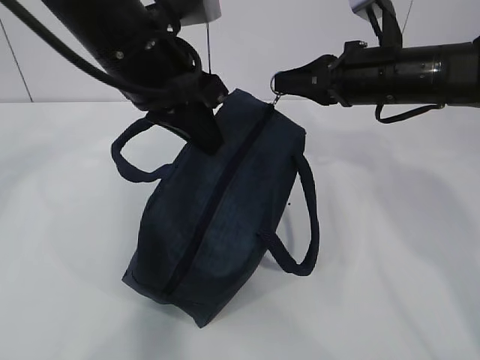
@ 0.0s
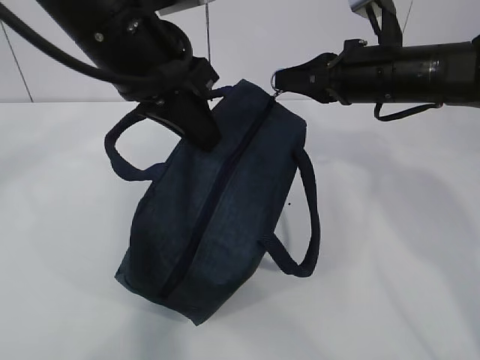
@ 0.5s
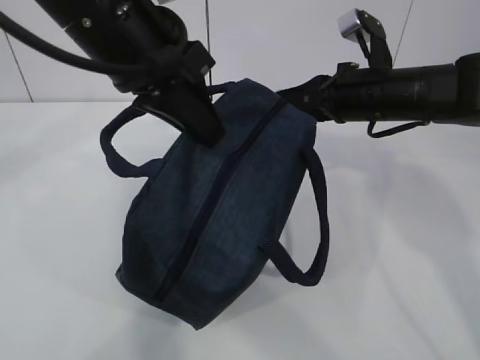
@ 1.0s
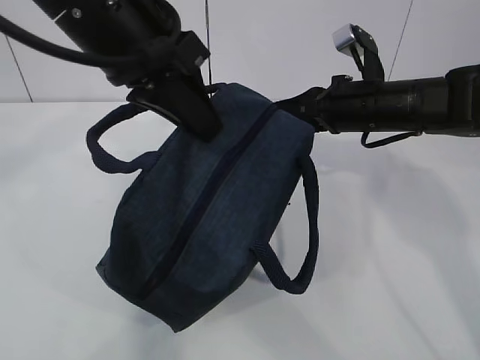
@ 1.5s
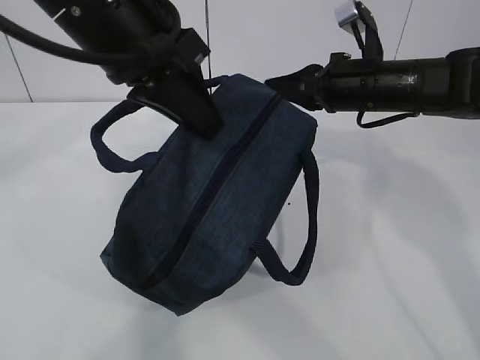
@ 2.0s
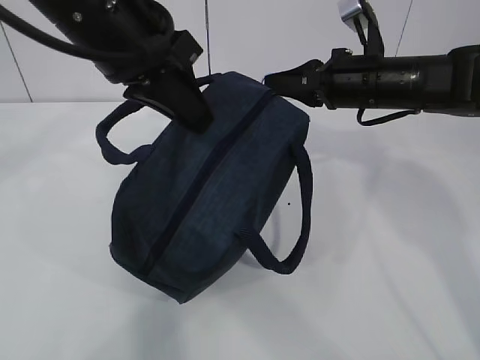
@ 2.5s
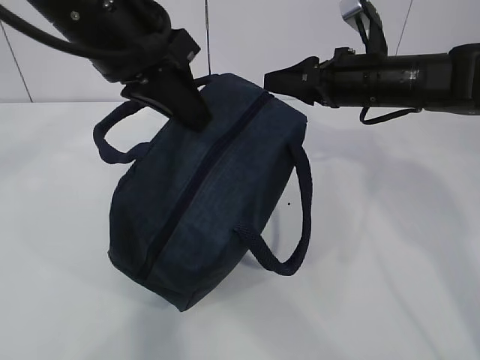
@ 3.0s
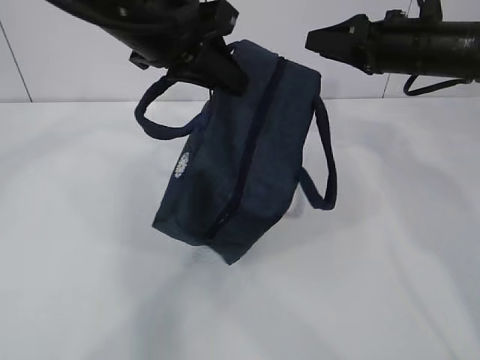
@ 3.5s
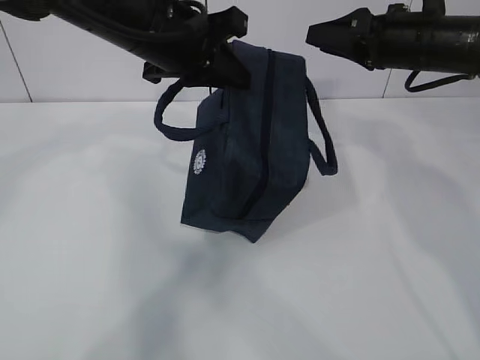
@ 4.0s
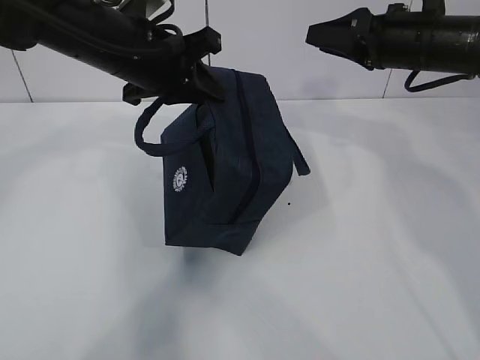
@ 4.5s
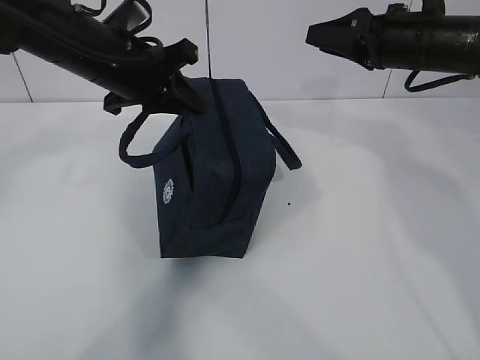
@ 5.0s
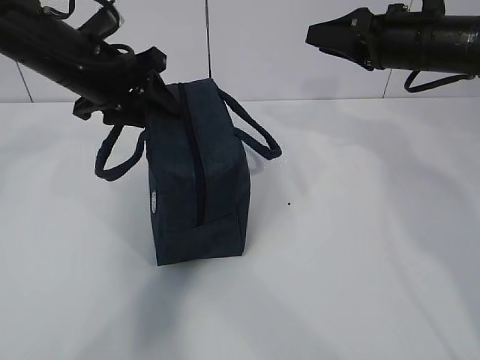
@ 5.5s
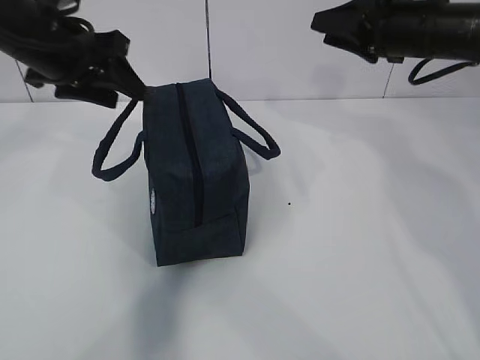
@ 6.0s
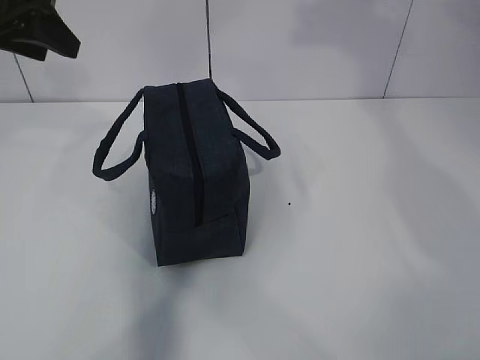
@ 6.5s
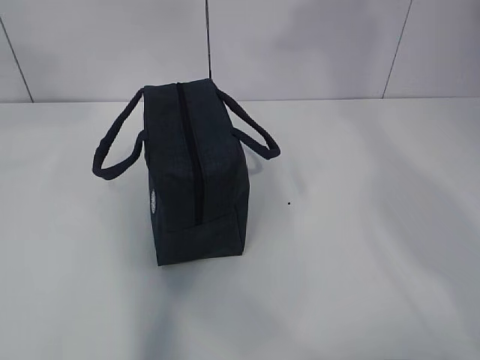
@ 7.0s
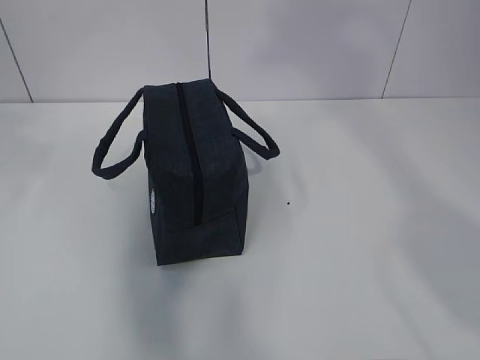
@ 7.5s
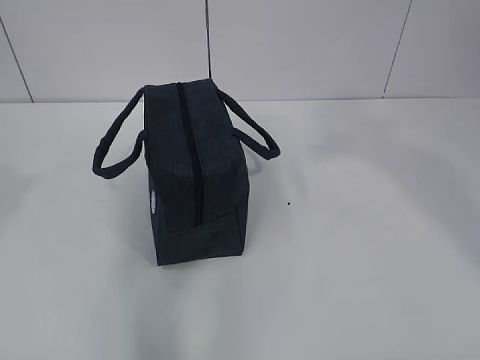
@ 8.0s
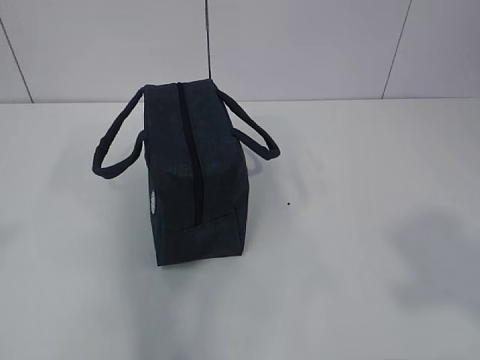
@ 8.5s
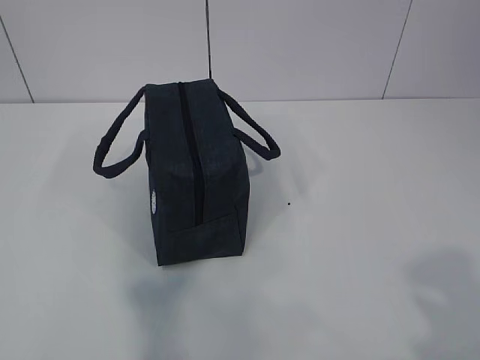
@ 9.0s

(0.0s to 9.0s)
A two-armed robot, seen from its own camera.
0.0s - 2.0s: The left gripper changes place by about 5 cm.
2.0s - 4.5s: The right gripper changes place by about 5 cm, and opens its fingers, while the left gripper goes some 10 cm forward and downward.
4.5s - 7.0s: The right gripper goes approximately 25 cm upward. Meanwhile the left gripper shifts approximately 25 cm upward, to the left and backward, and opens.

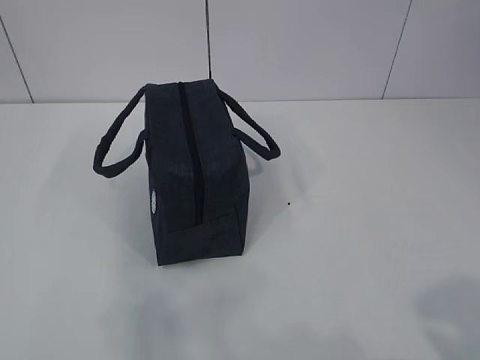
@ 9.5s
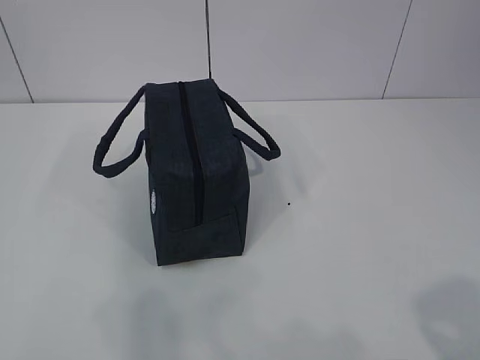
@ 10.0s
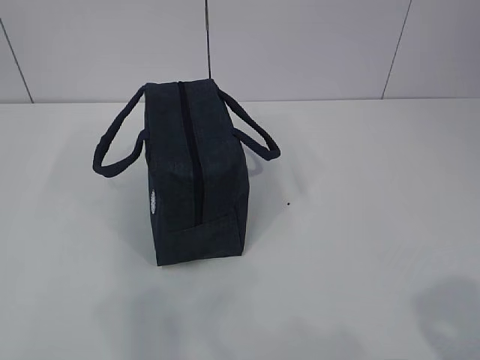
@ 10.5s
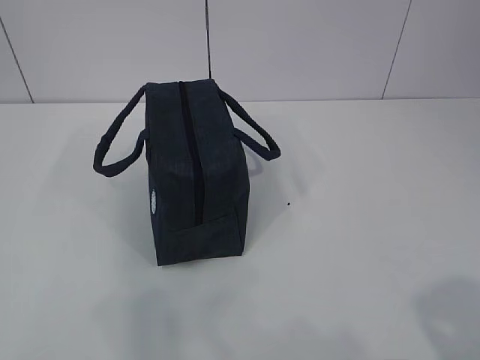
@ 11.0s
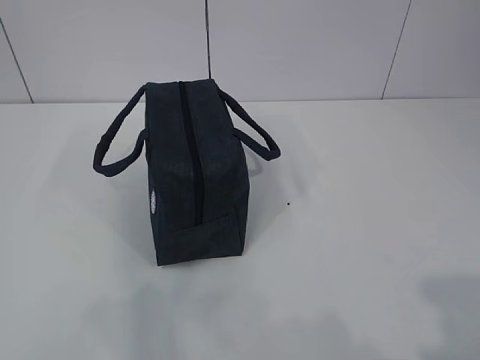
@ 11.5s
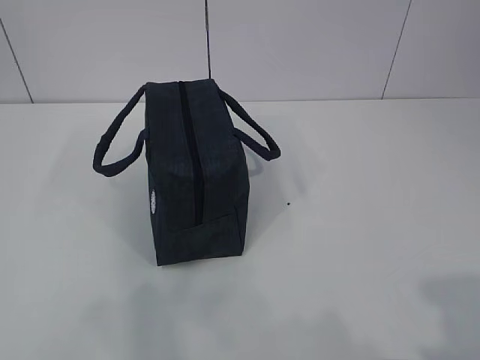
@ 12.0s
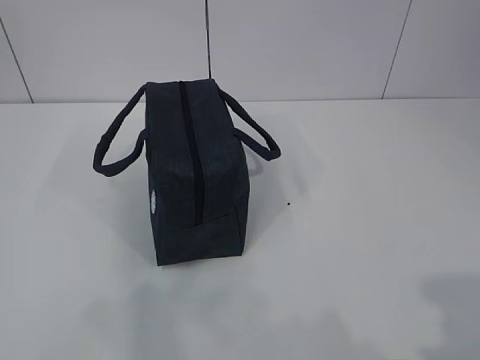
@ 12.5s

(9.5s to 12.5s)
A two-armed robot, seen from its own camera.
9.5s - 11.0s: Both grippers stay put.

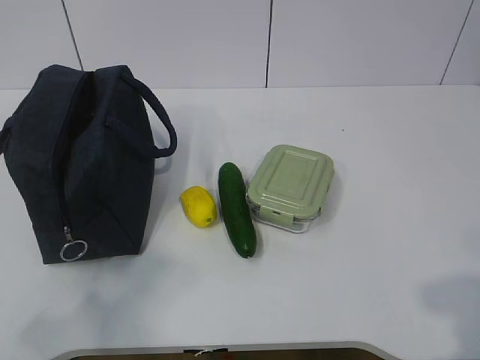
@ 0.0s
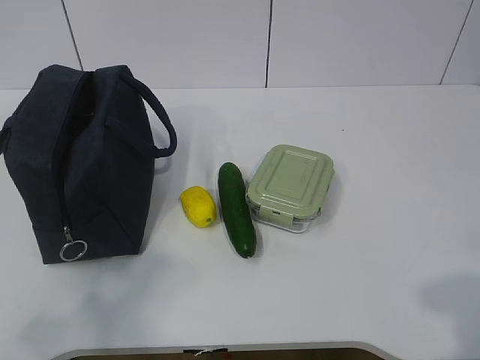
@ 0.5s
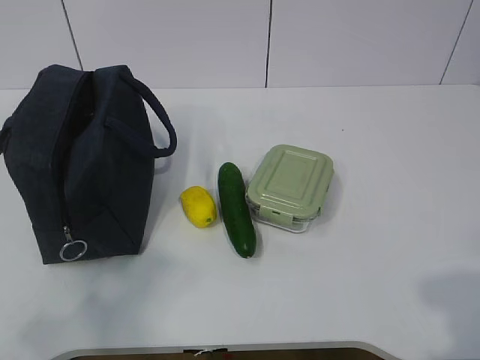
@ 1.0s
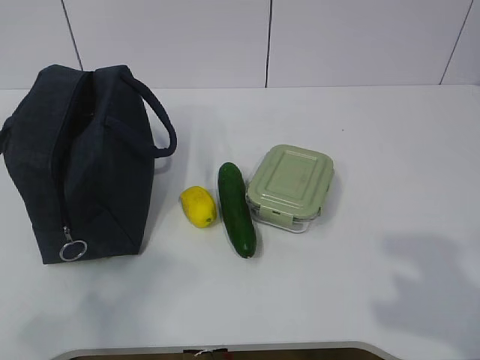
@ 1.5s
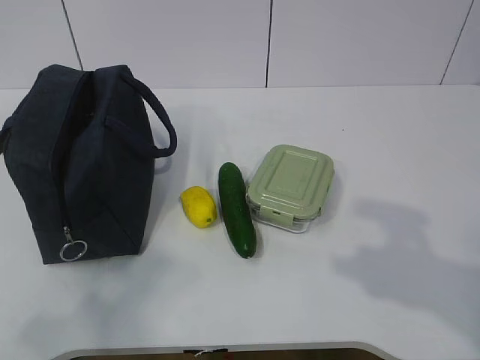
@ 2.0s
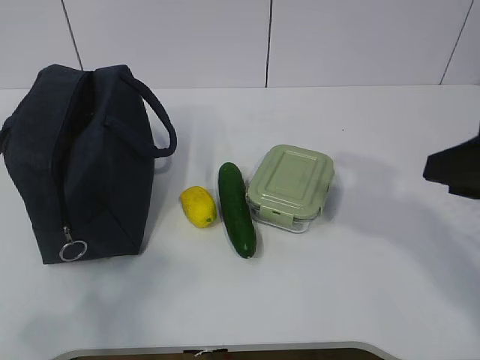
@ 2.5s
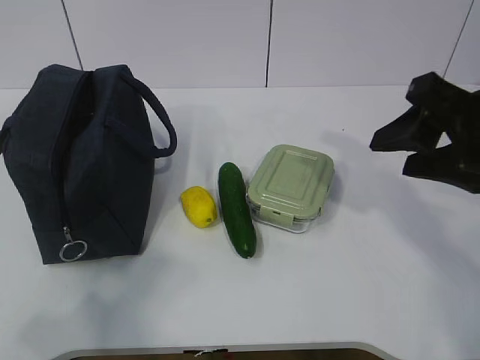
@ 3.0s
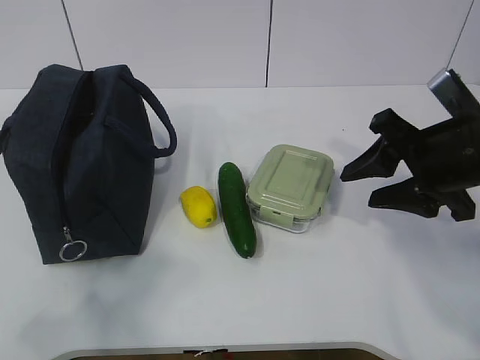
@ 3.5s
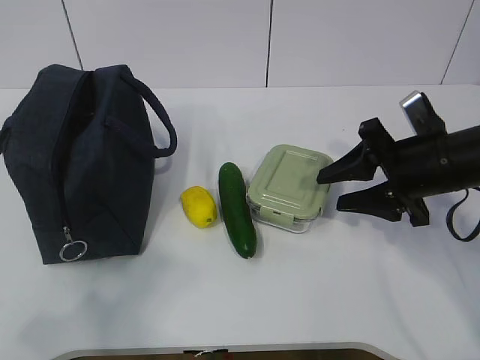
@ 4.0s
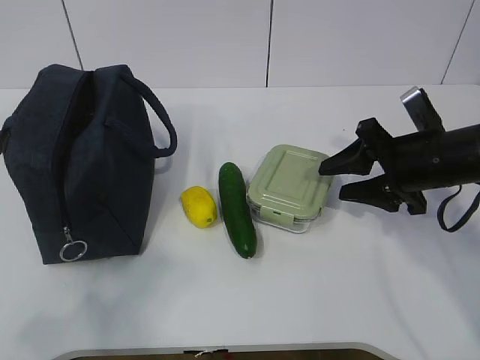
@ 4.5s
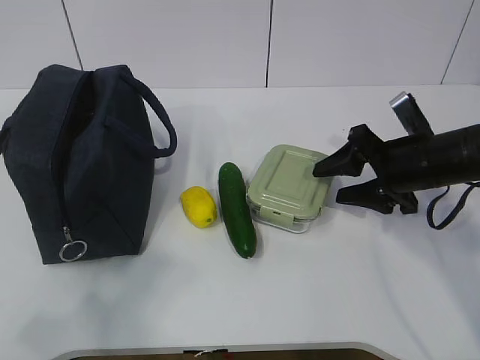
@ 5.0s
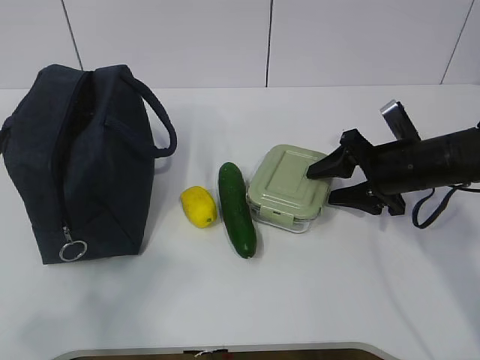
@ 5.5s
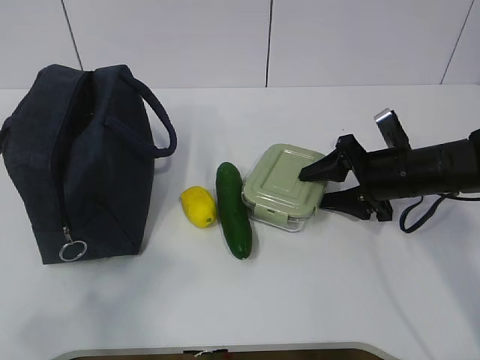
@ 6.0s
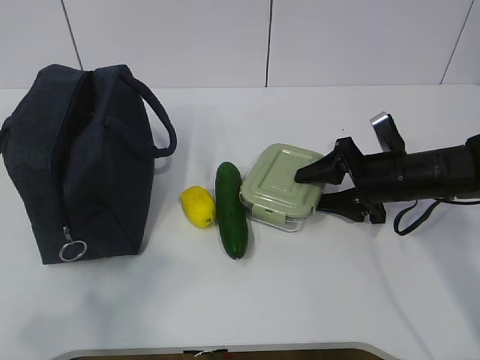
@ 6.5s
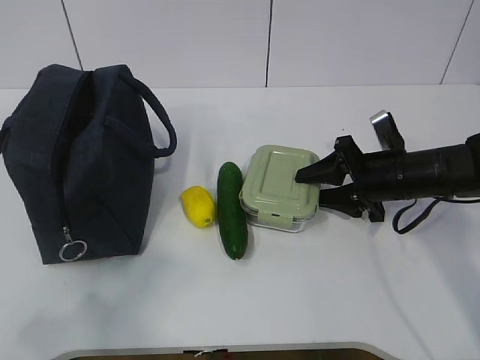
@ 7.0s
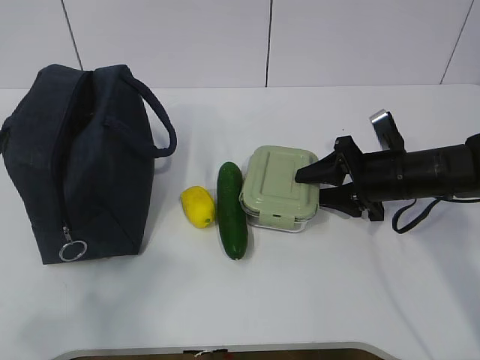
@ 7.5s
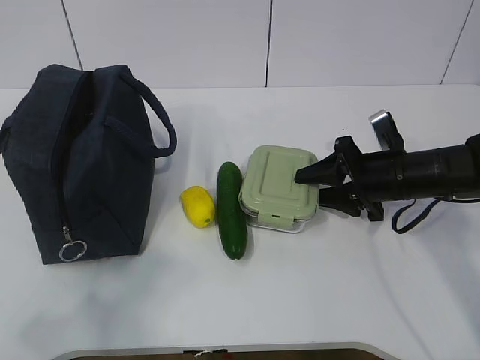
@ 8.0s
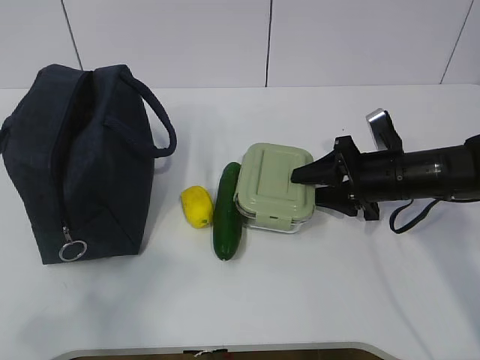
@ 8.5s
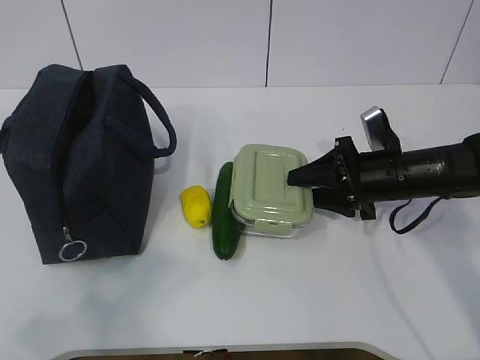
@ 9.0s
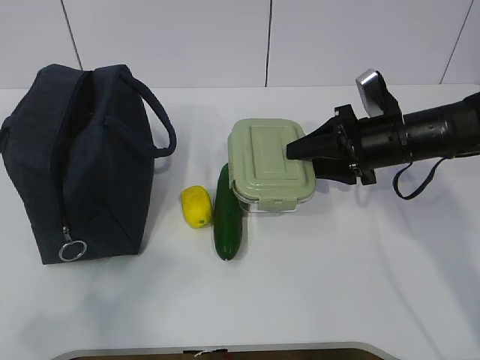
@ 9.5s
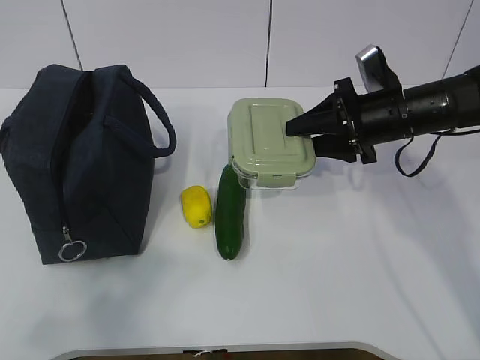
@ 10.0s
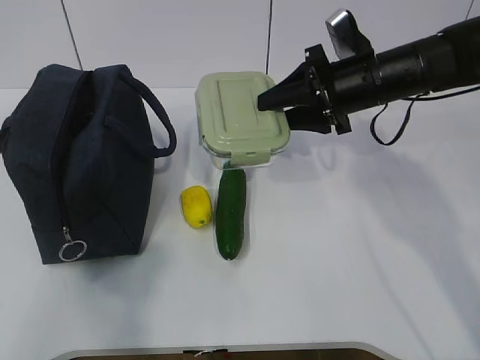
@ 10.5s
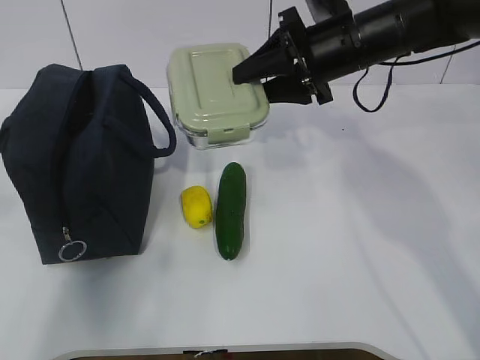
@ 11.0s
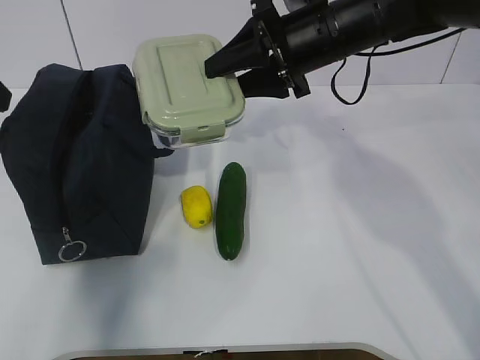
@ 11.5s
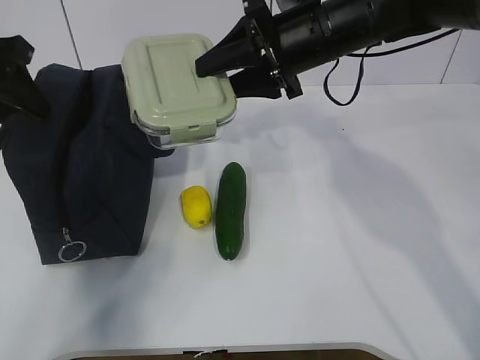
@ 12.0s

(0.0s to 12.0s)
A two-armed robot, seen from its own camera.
Step, 0.0s - 6.5s: Grab the lunch box with your right hand.
Step, 7.0s - 10.5s: Grab the lunch bag with your left hand.
2.0s - 4.0s: The right gripper shifts roughly 25 cm forward and downward.
4.0s - 6.0s: The right gripper moves downward and forward, roughly 10 cm.
6.0s - 8.0s: The grippers stay close to where they were, moving slightly.
8.0s - 10.0s: The right gripper shifts some 5 cm upward.
10.0s - 12.0s: The right gripper heads to the left and upward, covering roughly 15 cm. The left gripper shifts roughly 35 cm forward.

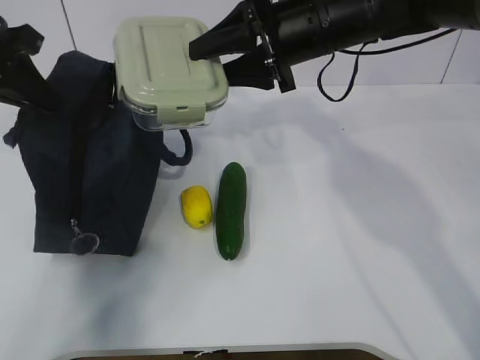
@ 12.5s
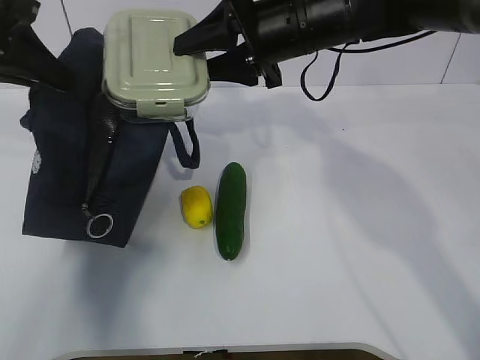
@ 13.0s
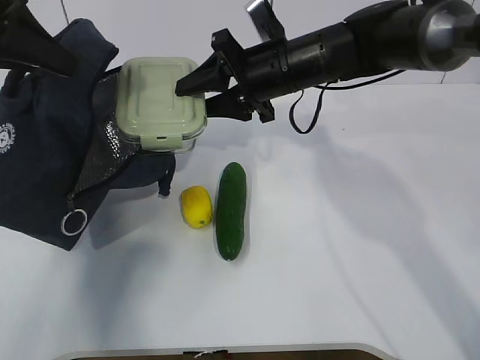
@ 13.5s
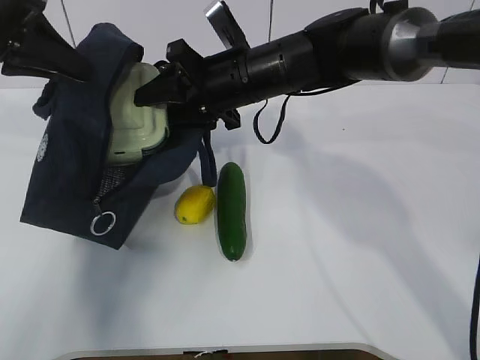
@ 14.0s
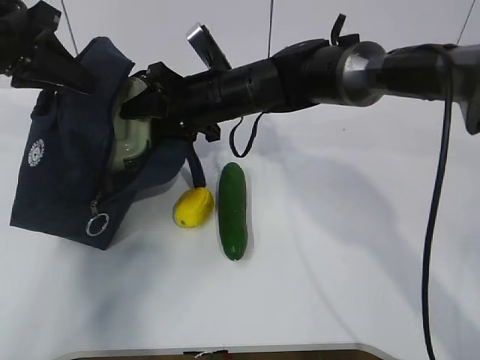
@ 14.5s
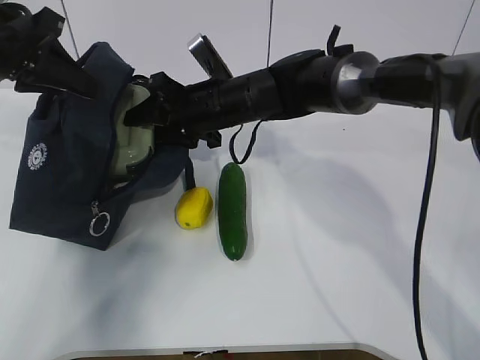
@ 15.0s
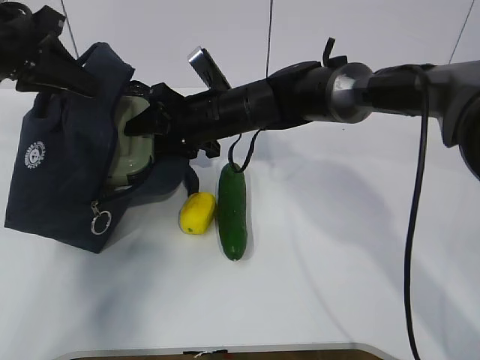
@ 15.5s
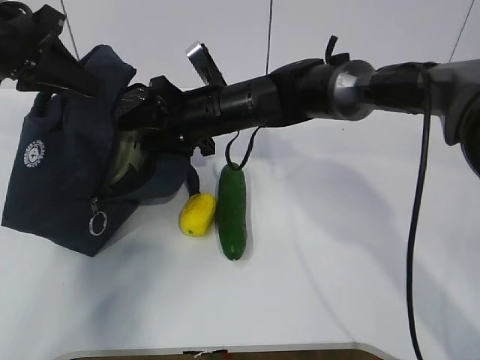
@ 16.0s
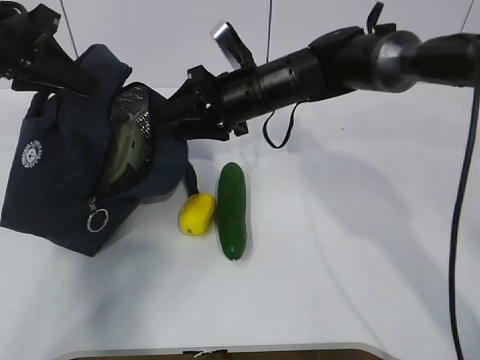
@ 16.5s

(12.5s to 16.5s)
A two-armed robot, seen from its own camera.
Step, 13.5s - 16.0s: Grab the cucumber with your right hand.
12.5s - 14.5s: The right gripper heads to the left and downward, covering roughly 15 cm.
14.5s - 16.5s: The grippers move only a little.
